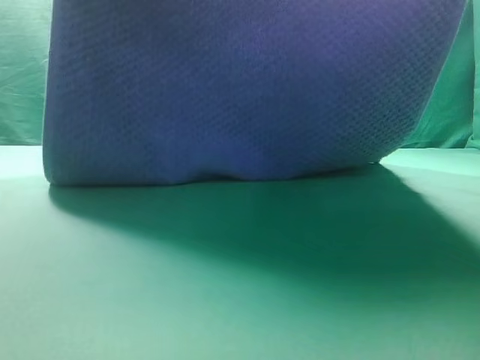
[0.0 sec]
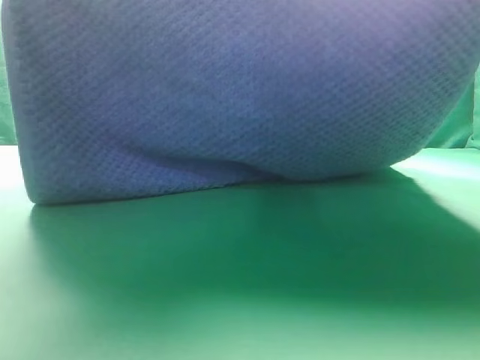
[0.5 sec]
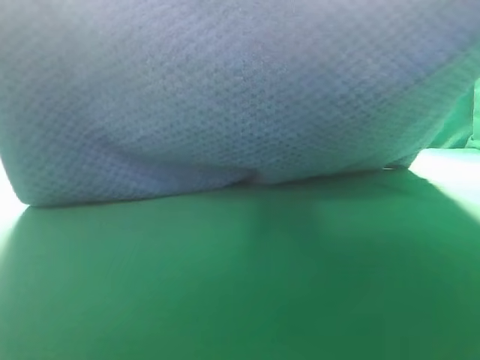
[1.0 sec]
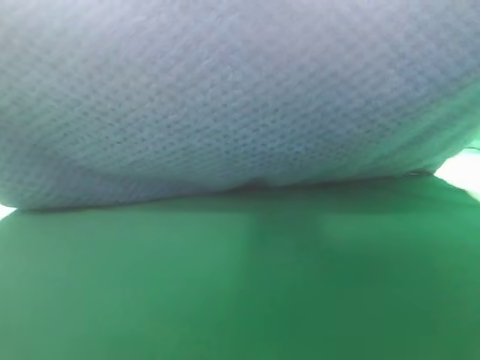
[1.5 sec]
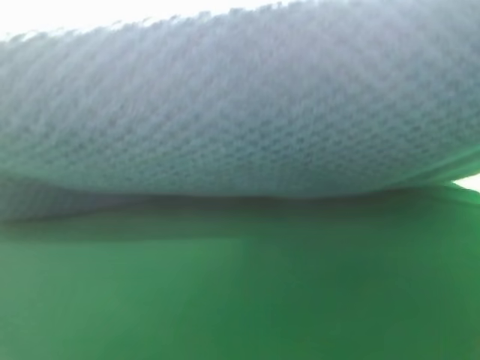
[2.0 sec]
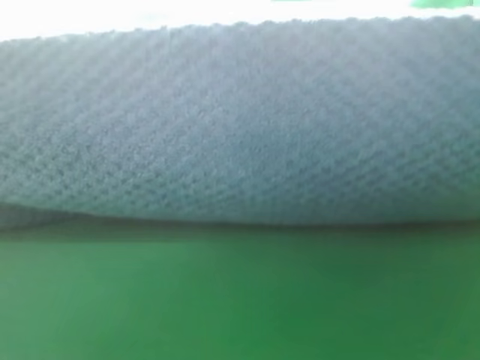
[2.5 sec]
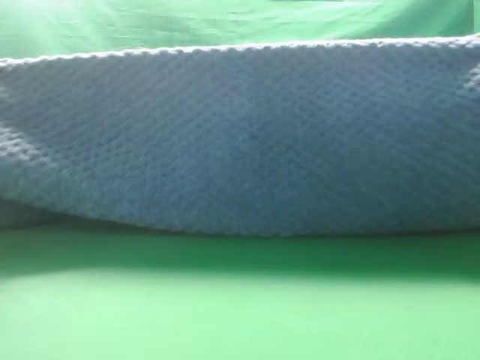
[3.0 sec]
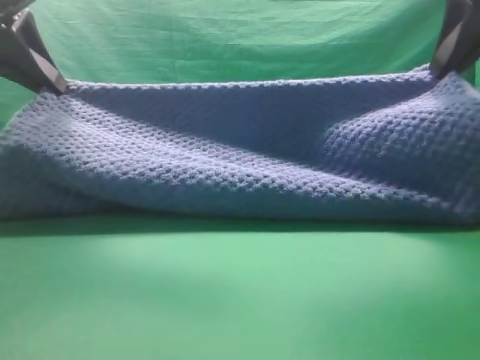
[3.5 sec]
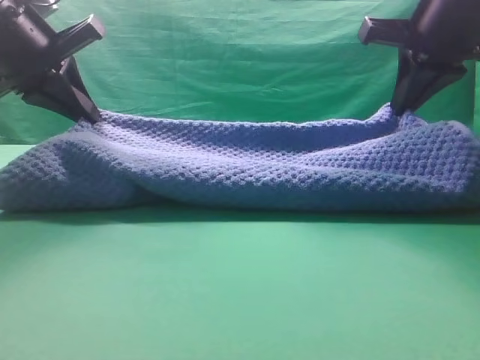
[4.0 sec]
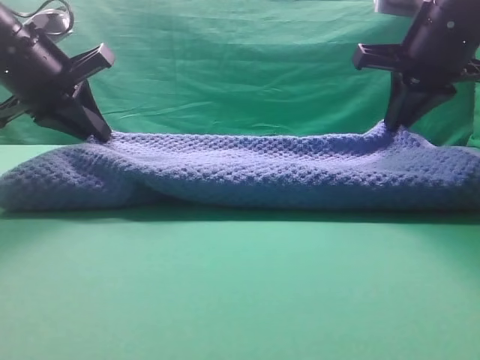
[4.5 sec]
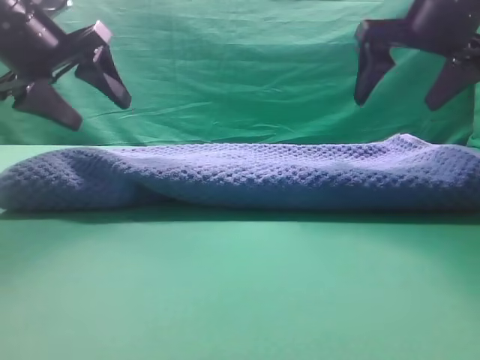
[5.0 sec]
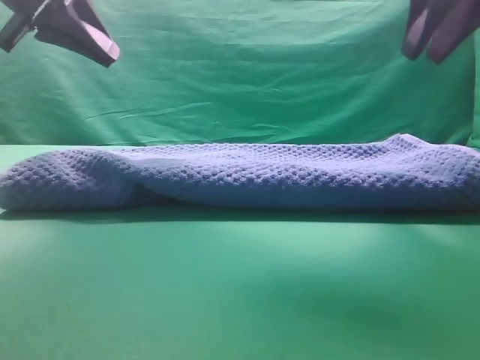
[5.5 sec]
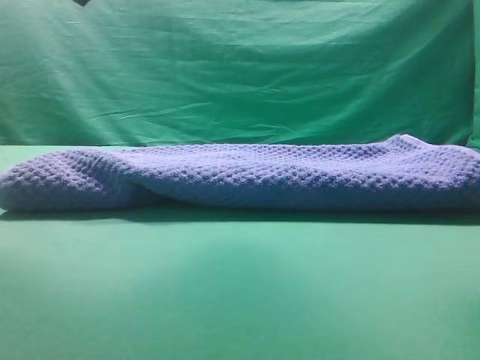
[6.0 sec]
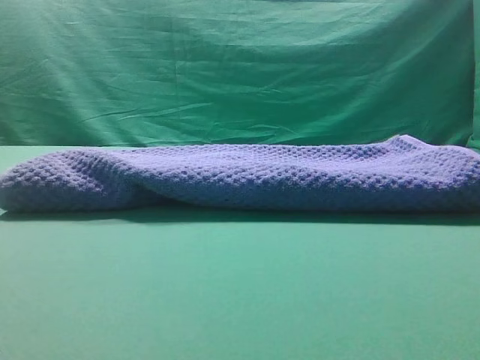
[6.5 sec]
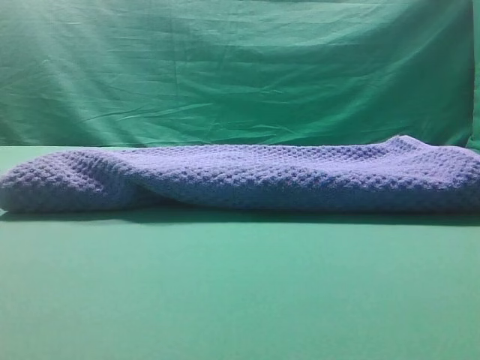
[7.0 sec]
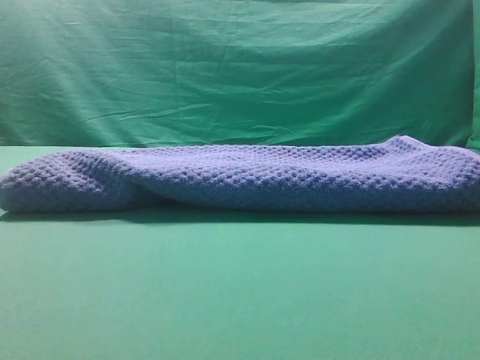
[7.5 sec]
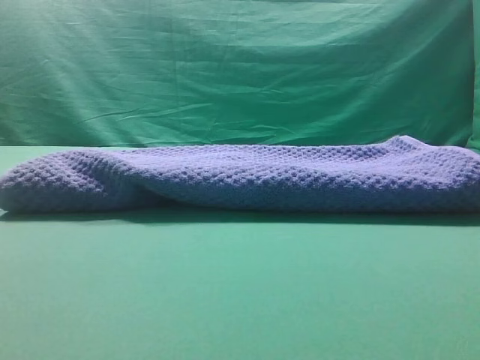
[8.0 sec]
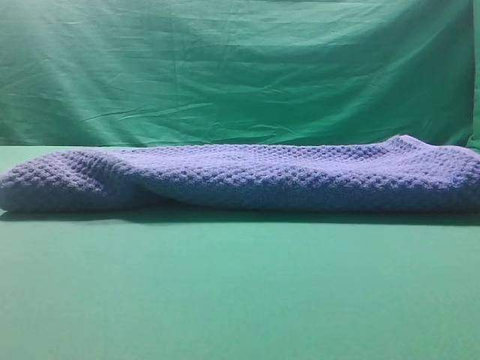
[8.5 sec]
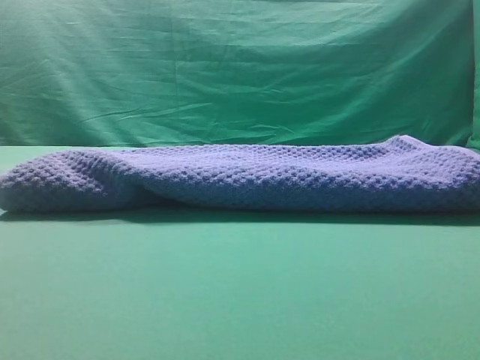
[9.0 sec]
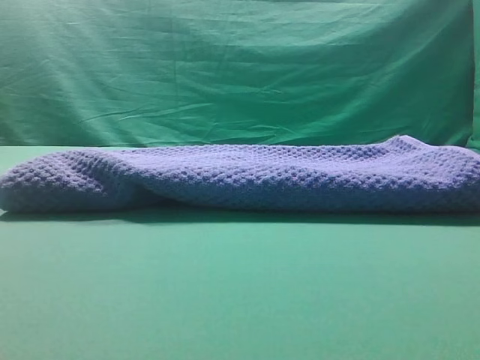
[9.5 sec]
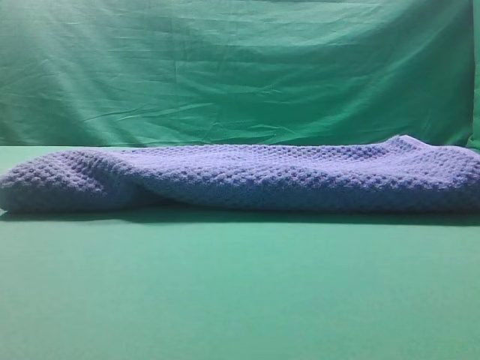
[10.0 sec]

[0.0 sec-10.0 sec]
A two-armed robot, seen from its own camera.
Task of the whole recording: fold the towel on the table twice.
Step, 0.0 sec to 5.0 sec: Fold the towel twice on the table.
